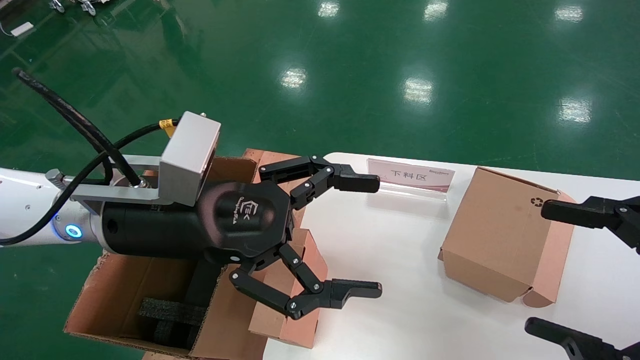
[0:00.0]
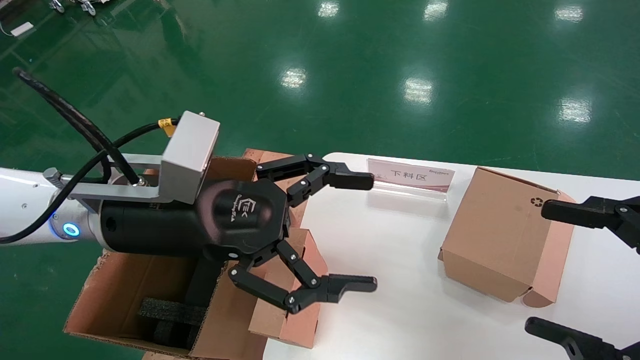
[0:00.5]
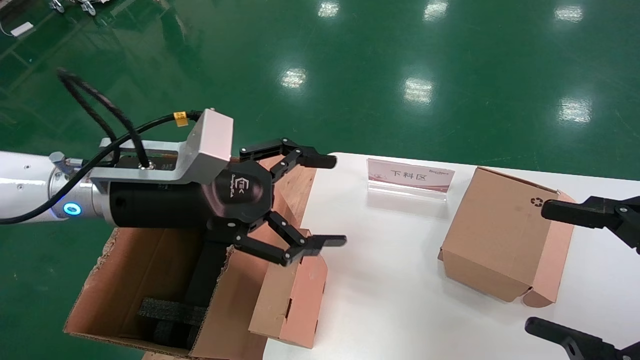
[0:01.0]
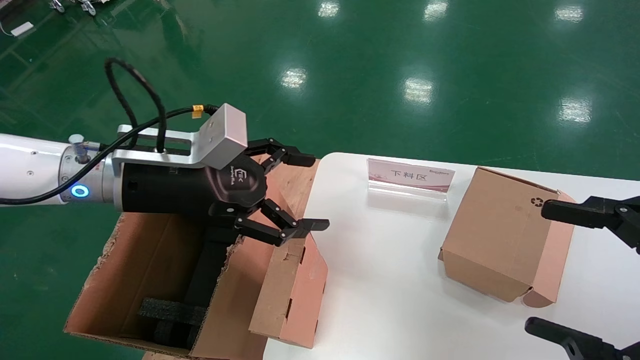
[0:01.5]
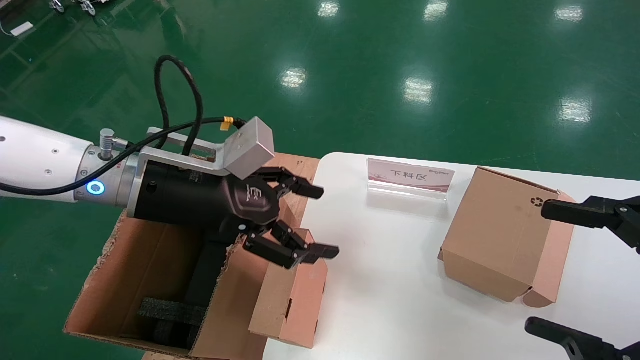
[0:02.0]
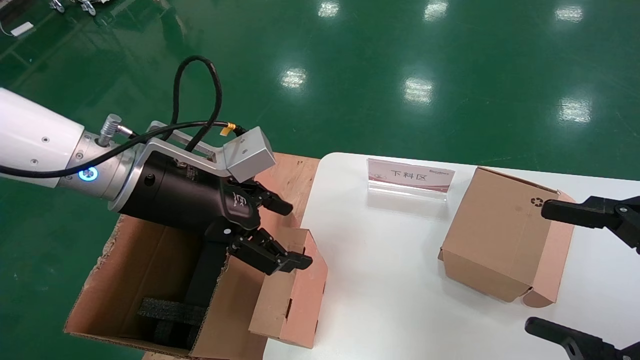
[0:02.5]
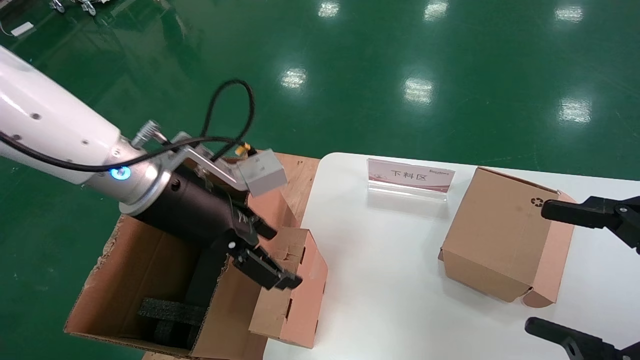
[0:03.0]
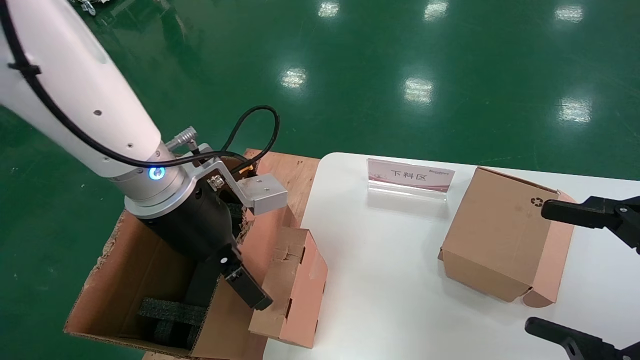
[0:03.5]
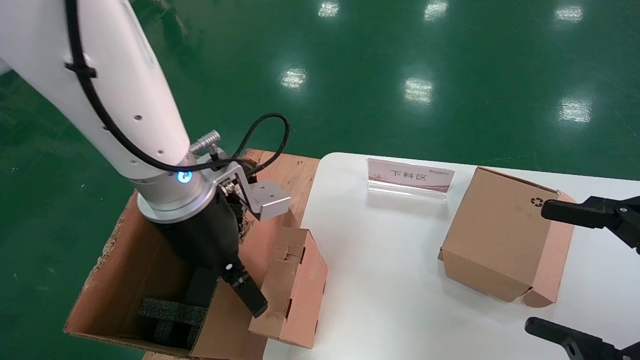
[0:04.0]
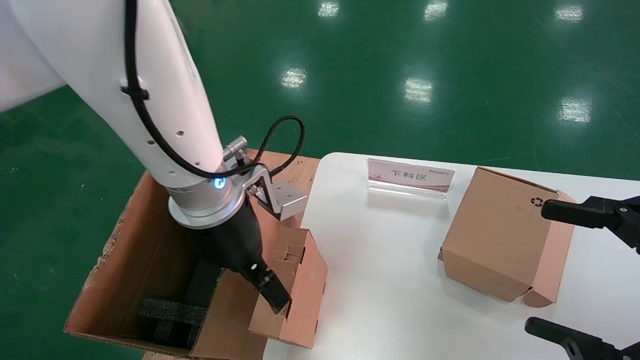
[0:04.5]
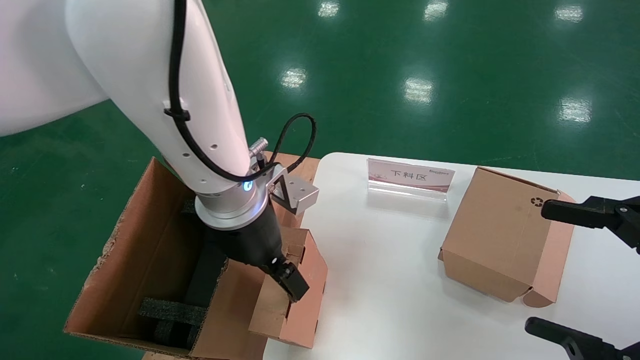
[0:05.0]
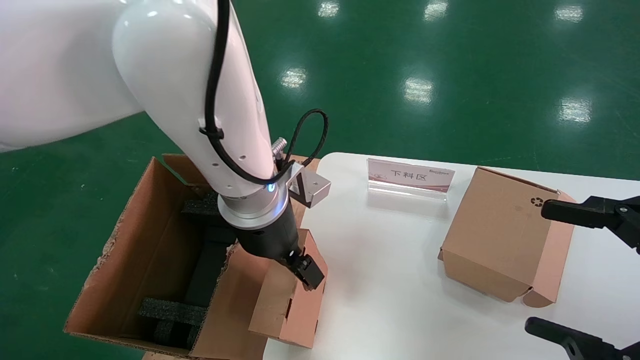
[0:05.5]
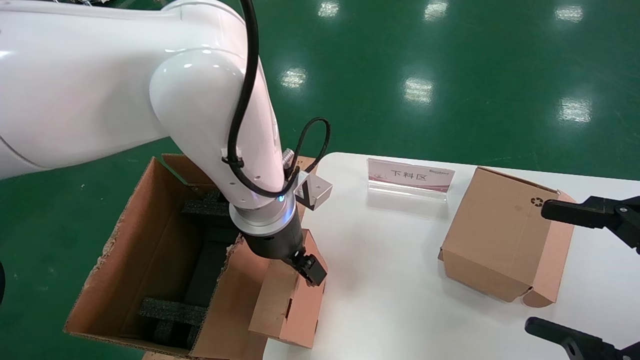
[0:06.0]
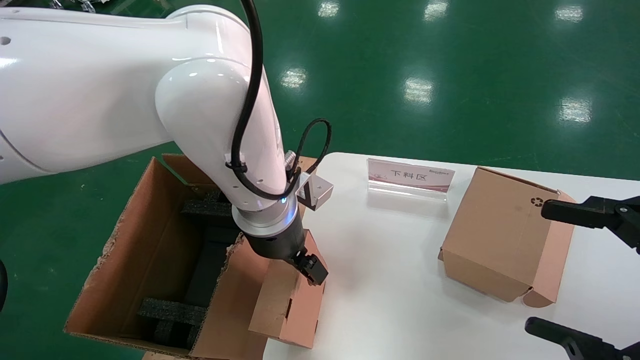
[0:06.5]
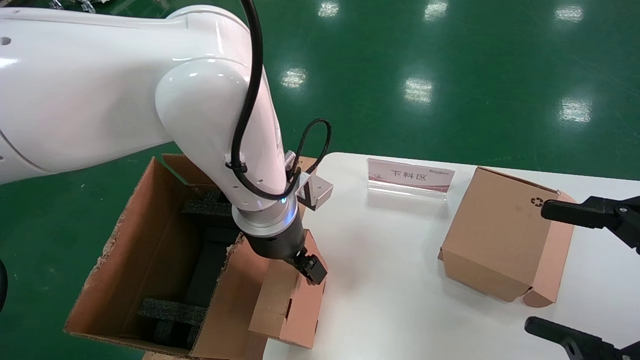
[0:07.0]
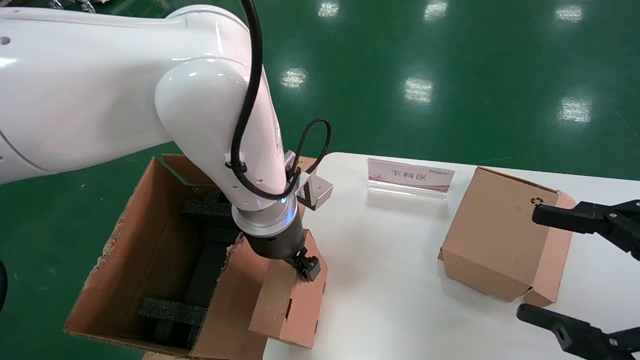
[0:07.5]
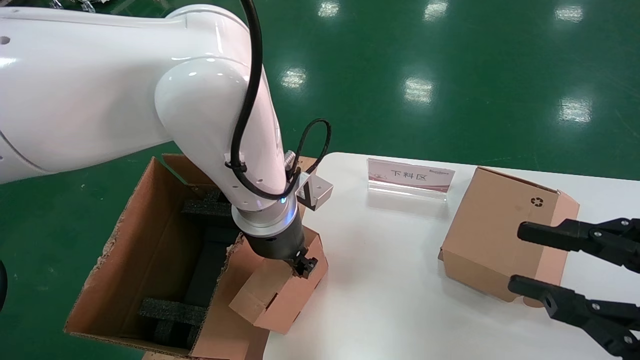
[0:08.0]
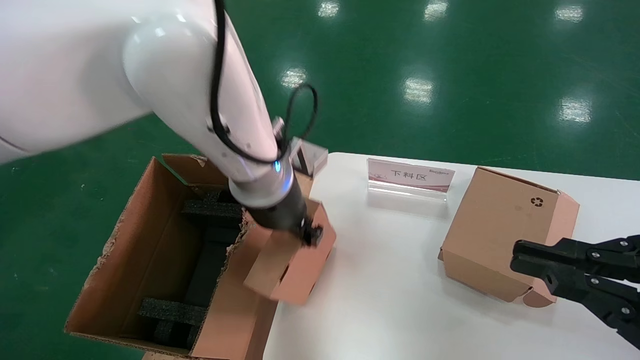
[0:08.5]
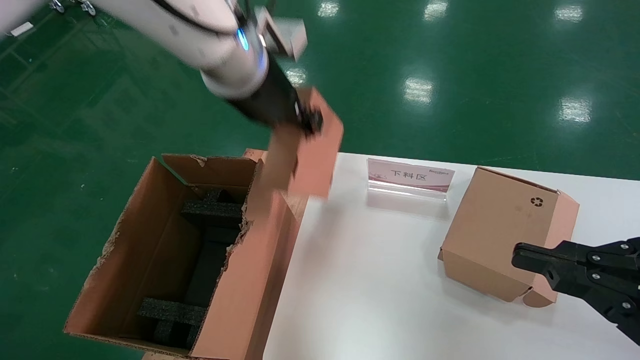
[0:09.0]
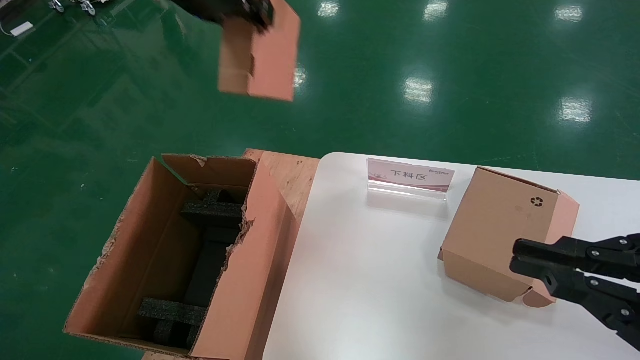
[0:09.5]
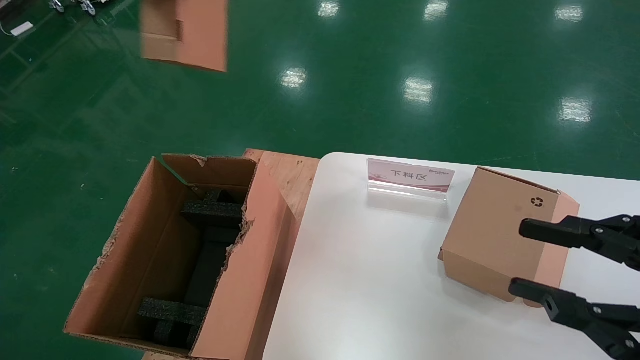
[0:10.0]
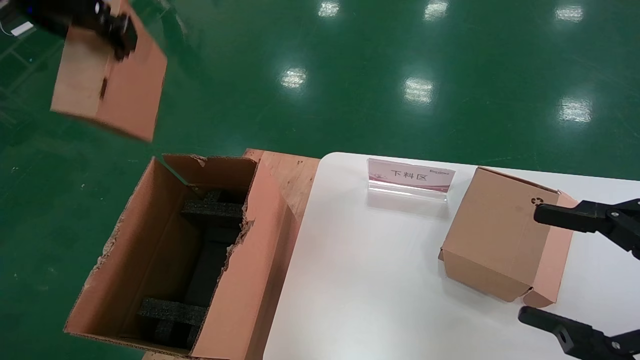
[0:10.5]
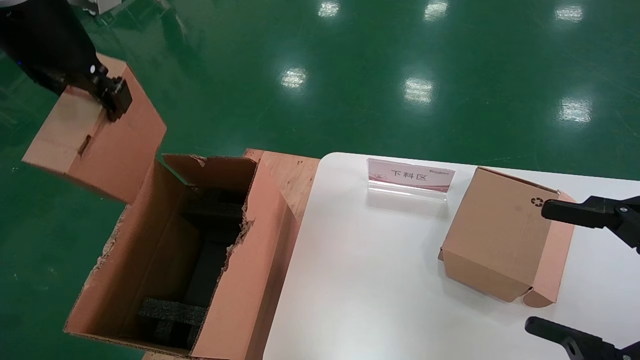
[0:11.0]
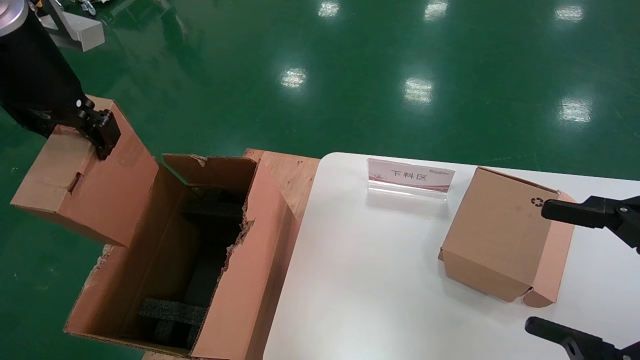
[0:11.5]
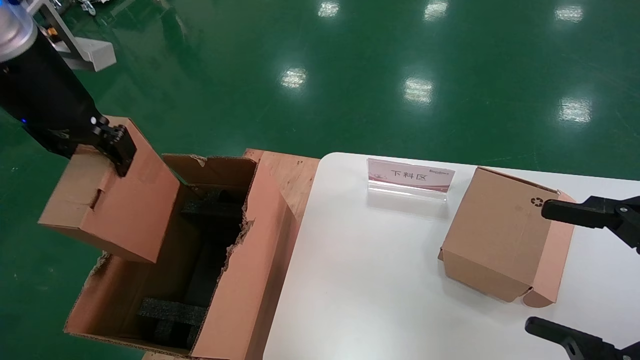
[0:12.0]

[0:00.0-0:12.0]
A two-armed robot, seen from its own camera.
Task of the whole recording: put the box on the table into the big box.
Step, 0:00.0 to 0:07.5: Grasp the paper box.
0:02.0 to 0:04.0: The left gripper moves to the right, approximately 5 cm.
0:04.0 to 0:06.0: The left gripper goes about 10 cm to the right and forward.
0:06.0 to 0:08.0: The left gripper closes, while the right gripper closes.
0:08.0 to 0:10.0: The right gripper closes up. Meanwhile the left gripper heads upward and to the left, covering some 30 cm.
0:10.0 to 0:12.0: The right gripper opens; the left gripper heads downward and to the left, covering roughly 15 cm.

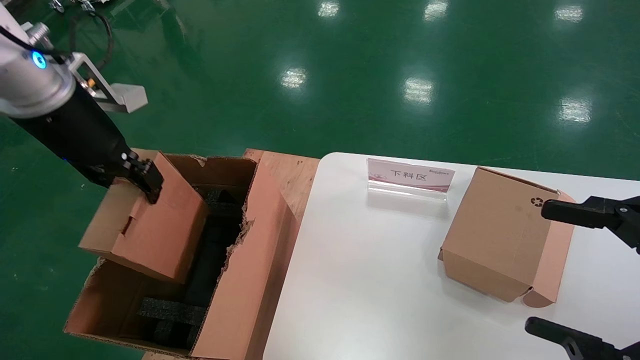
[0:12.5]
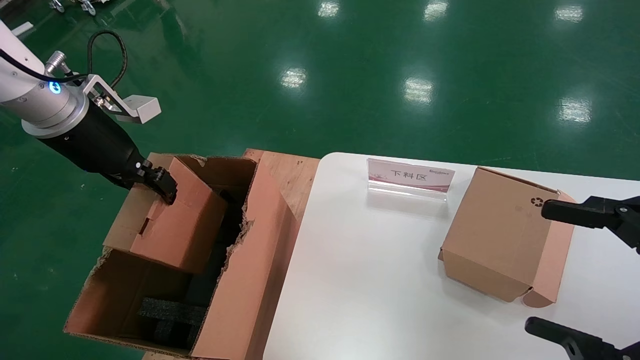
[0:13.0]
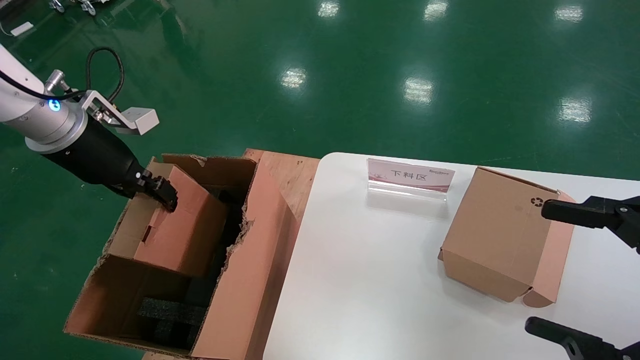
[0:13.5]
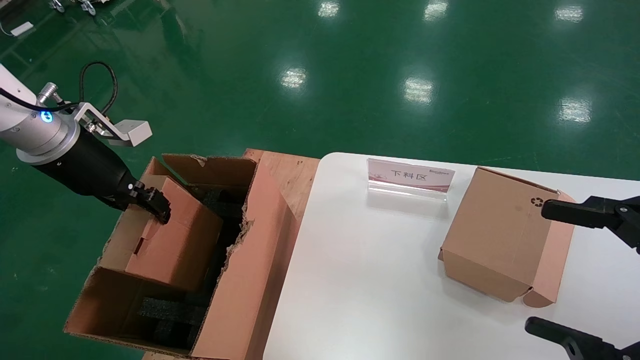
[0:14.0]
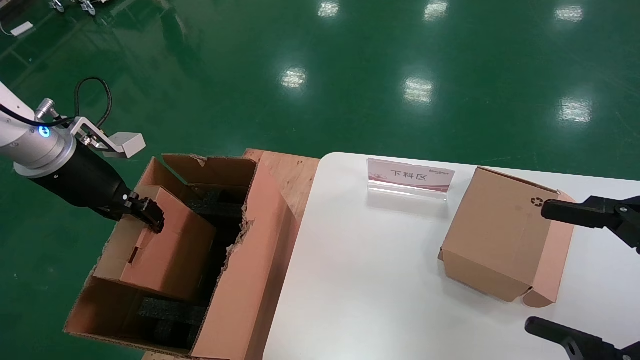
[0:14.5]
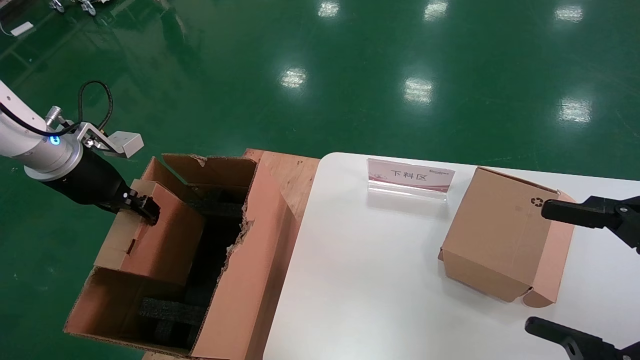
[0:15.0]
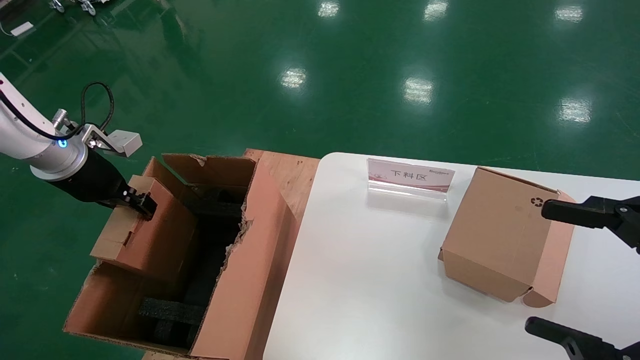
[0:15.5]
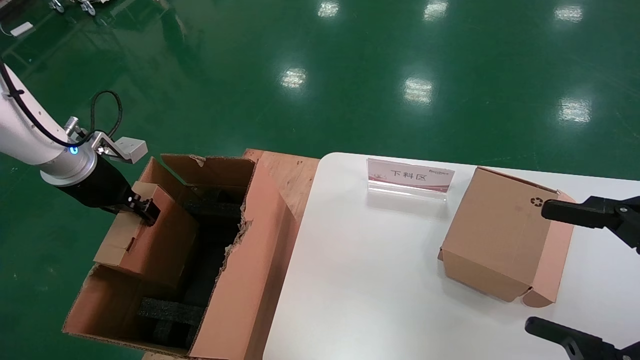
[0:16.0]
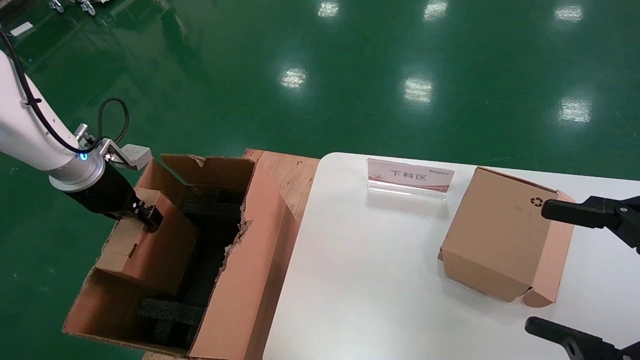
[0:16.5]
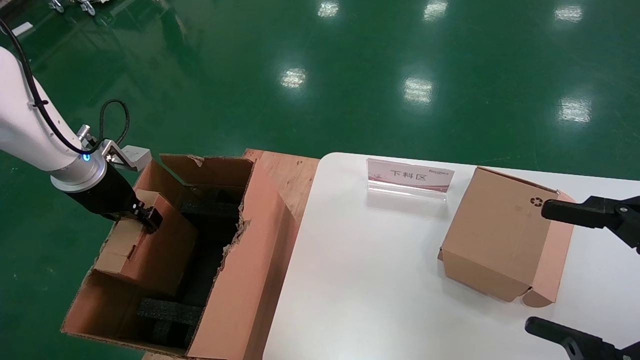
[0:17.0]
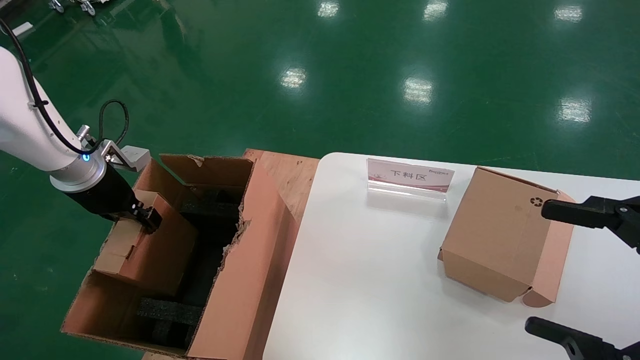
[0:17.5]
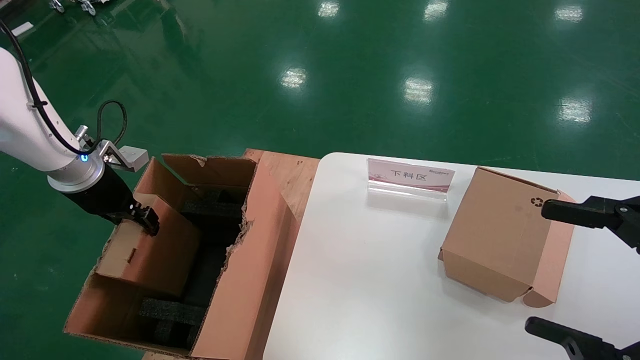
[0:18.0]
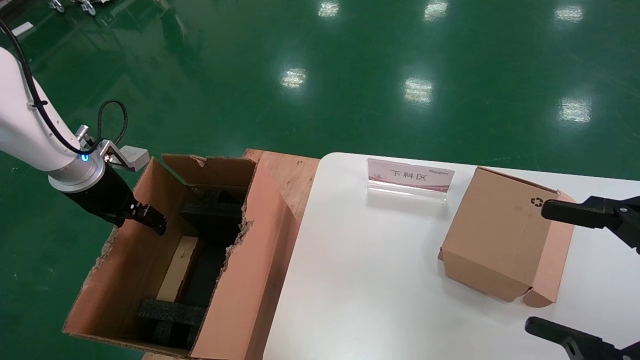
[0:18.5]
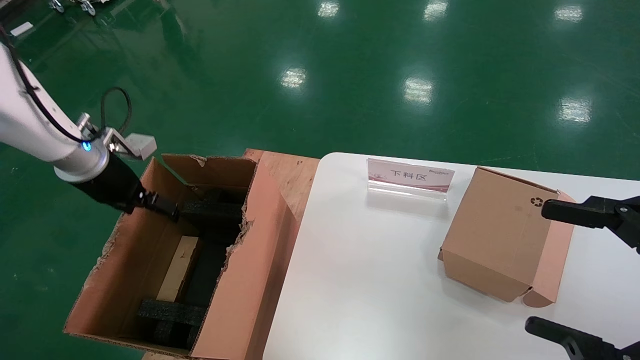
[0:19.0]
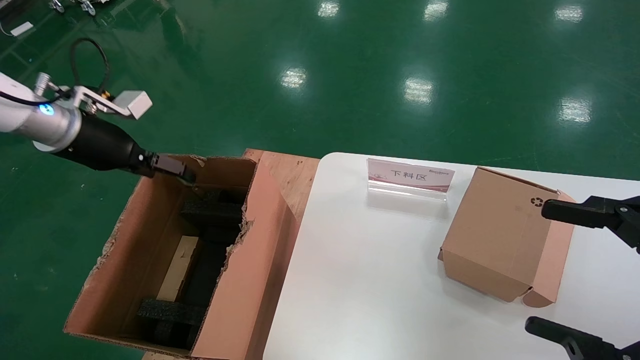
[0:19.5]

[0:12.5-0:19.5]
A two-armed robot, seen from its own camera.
Task of the whole recording: put the box on the table into the big box.
Step, 0:12.5 to 0:18.0: Place the paper box in the another big box.
0:12.5 to 0:14.5: The left gripper goes roughly 10 cm downward and to the left.
0:14.5 to 0:16.0: The left gripper moves approximately 5 cm.
0:16.0 to 0:17.5: There are only small adjustments of the grippers.
0:17.5 to 0:19.5: The left gripper travels upward by about 5 cm, and opens.
